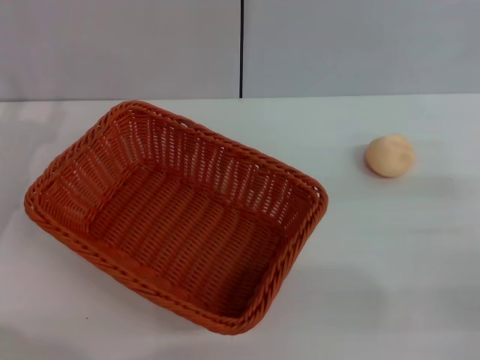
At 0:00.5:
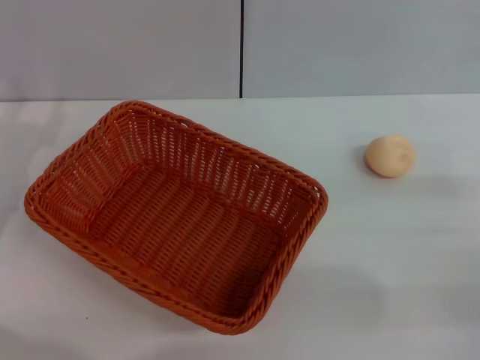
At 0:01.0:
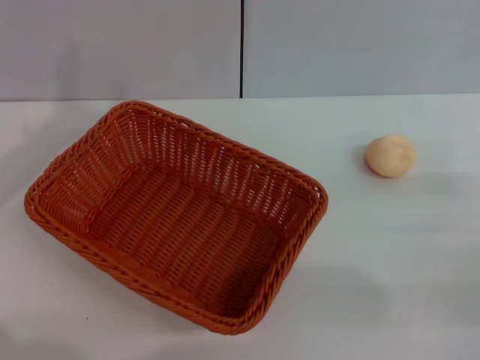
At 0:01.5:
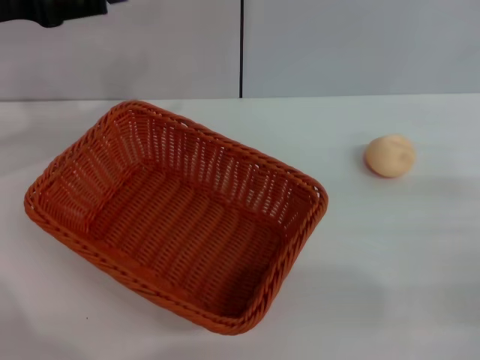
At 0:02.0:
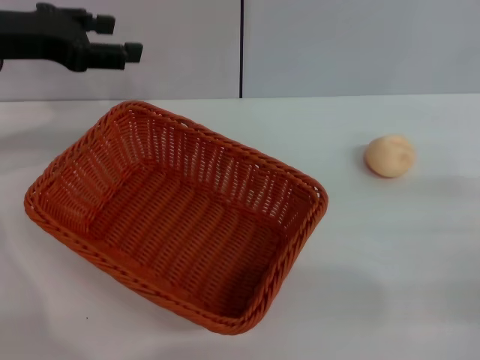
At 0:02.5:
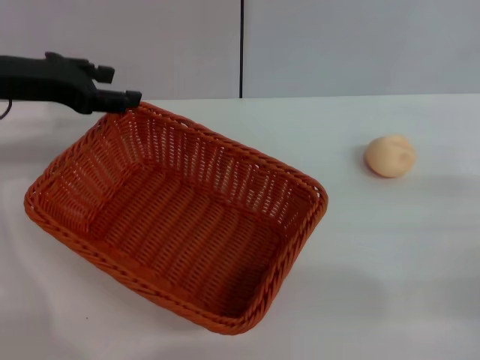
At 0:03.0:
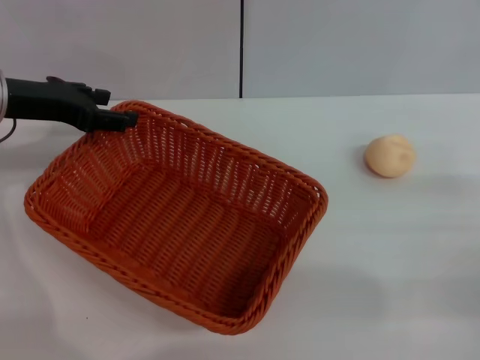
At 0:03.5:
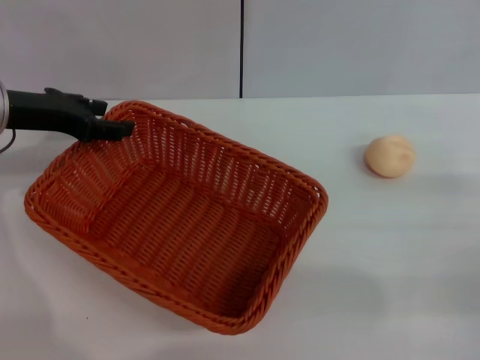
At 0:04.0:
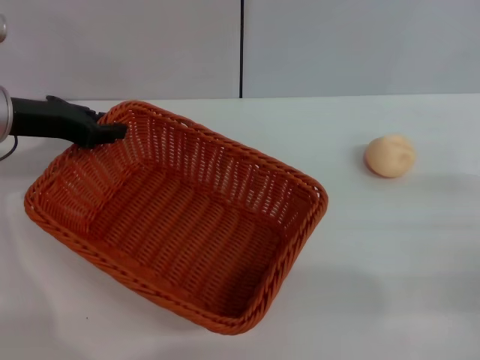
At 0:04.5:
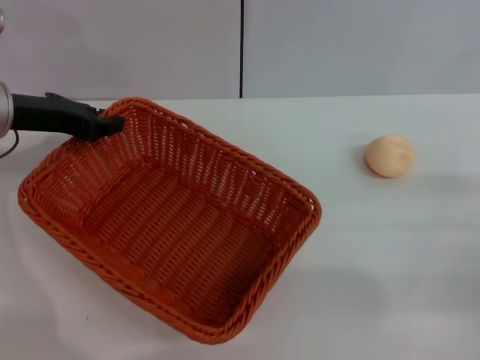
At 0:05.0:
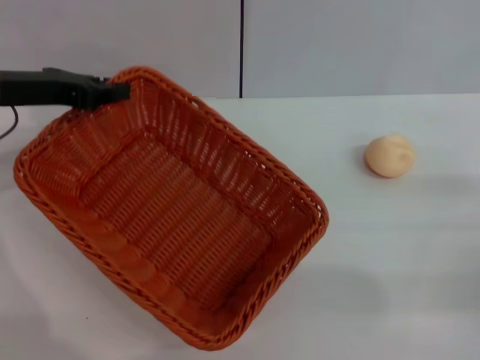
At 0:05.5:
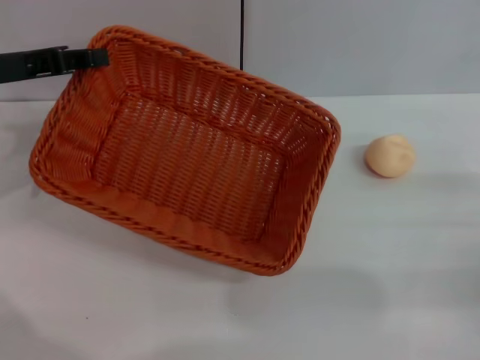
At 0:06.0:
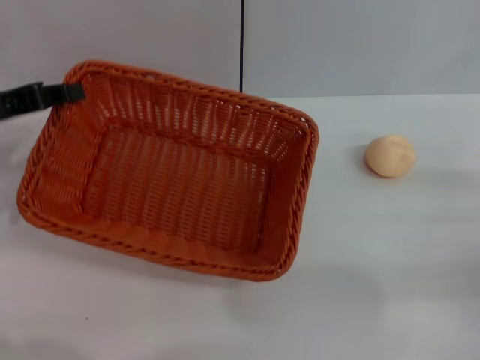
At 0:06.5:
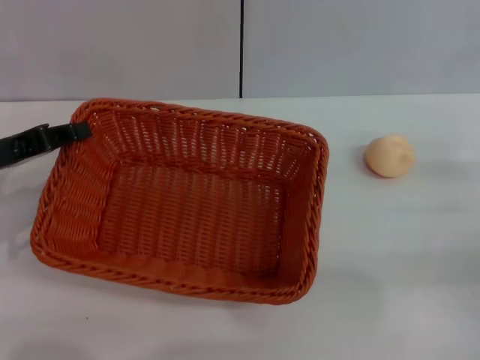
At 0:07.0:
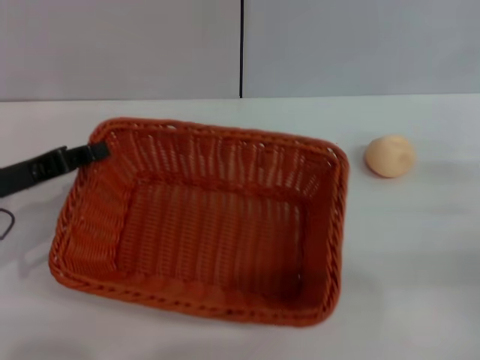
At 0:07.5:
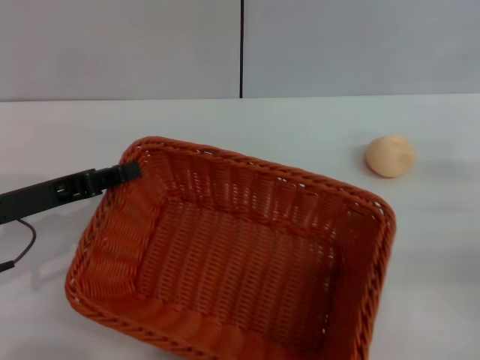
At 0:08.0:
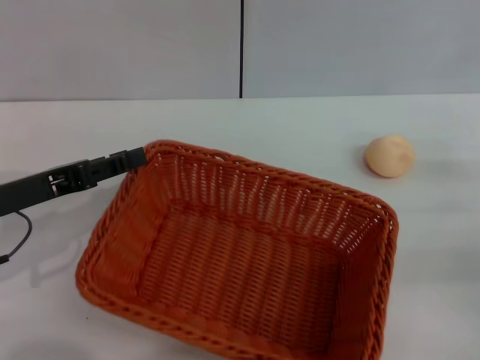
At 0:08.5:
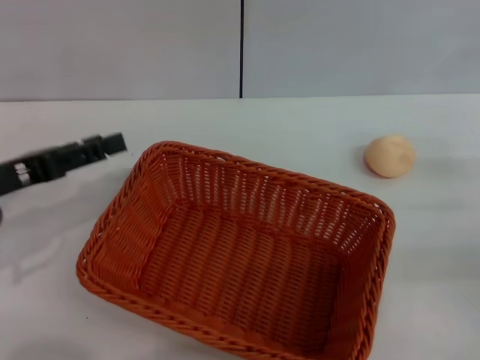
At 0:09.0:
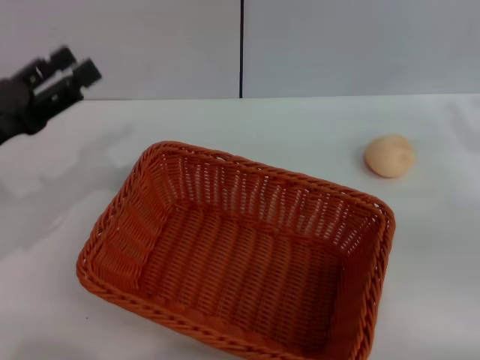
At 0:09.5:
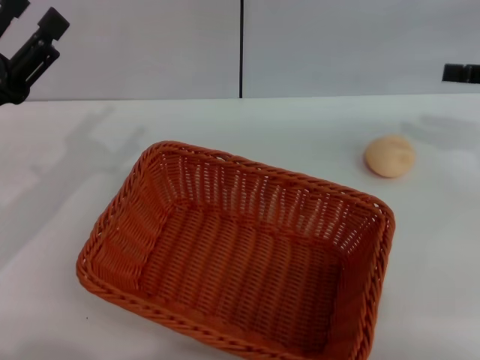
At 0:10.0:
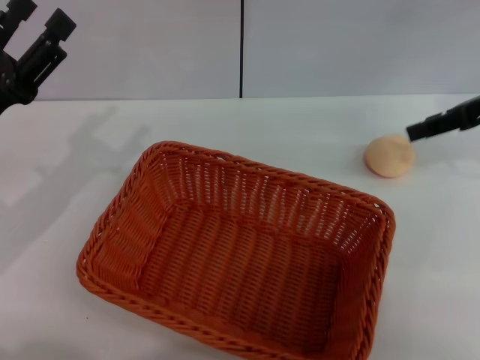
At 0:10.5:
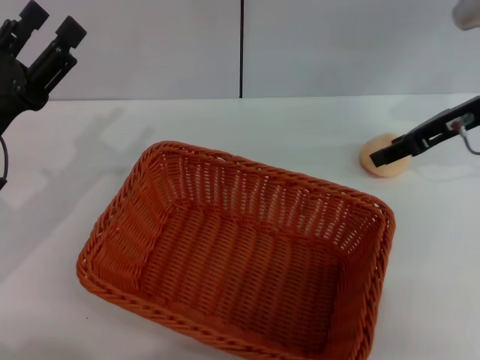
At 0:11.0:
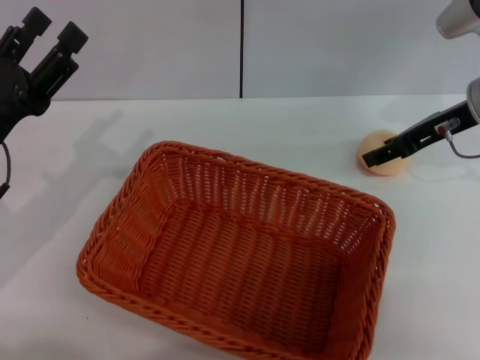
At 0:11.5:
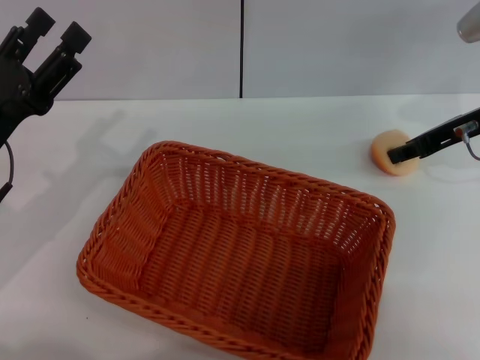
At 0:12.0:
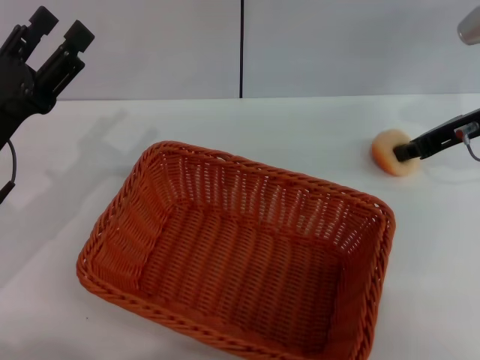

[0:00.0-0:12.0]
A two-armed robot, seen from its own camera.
Step, 0:00.0 to 0:08.5: Move the basket to the center of view with the left gripper.
0:00.0 to 0:02.0: The left gripper heads forward and upward, covering about 15 cm.
0:02.0 to 0:04.0: The left gripper goes some 5 cm downward, and closes up.
0:04.0 to 0:06.0: The left gripper changes place by about 5 cm, and closes up.
0:06.0 to 0:08.0: The left gripper travels backward by some 5 cm.
0:08.0 to 0:10.0: The right gripper shifts roughly 20 cm forward and upward. The left gripper opens.
0:10.0 to 0:12.0: The right gripper ends up approximately 5 cm from where it was, and closes its fingers.

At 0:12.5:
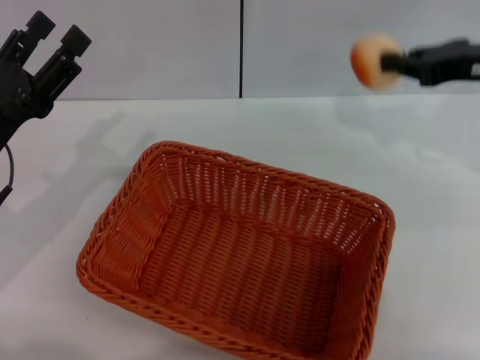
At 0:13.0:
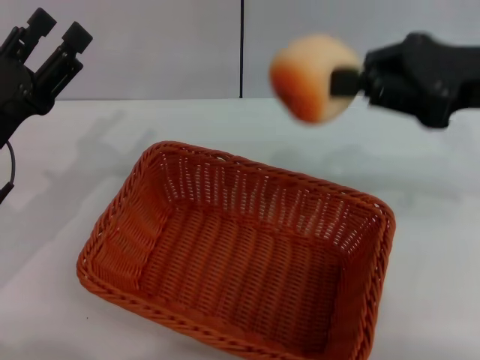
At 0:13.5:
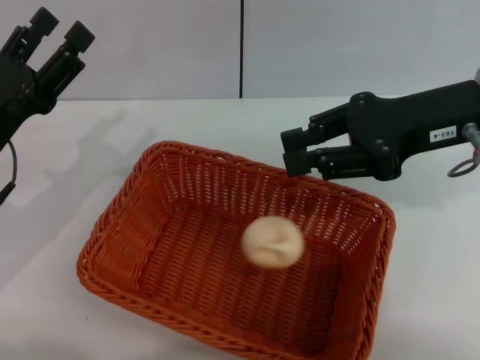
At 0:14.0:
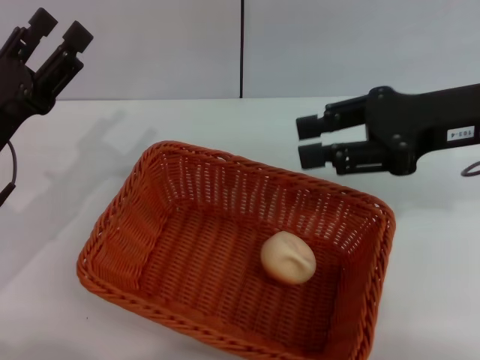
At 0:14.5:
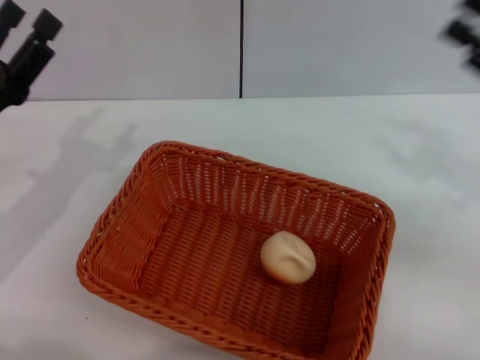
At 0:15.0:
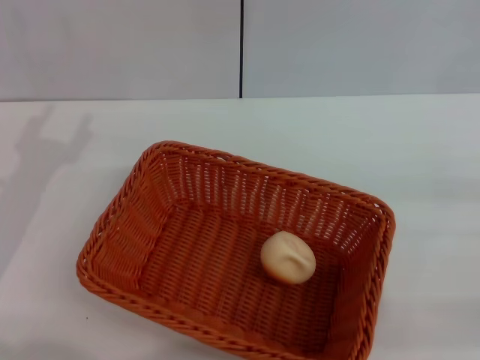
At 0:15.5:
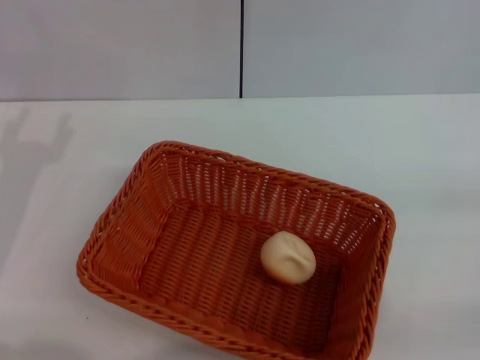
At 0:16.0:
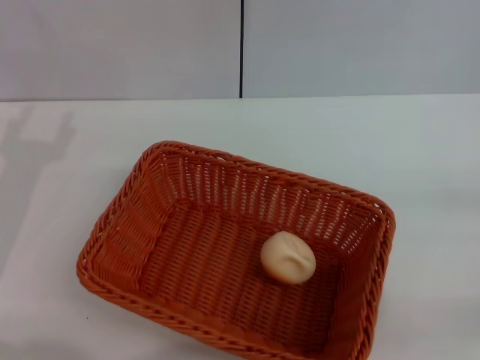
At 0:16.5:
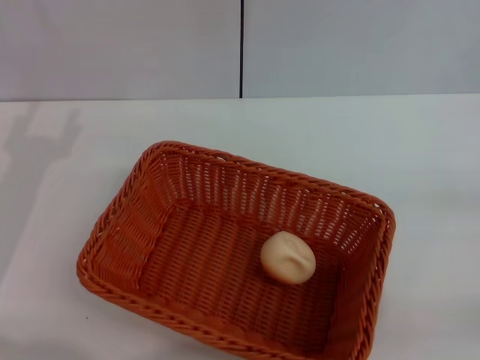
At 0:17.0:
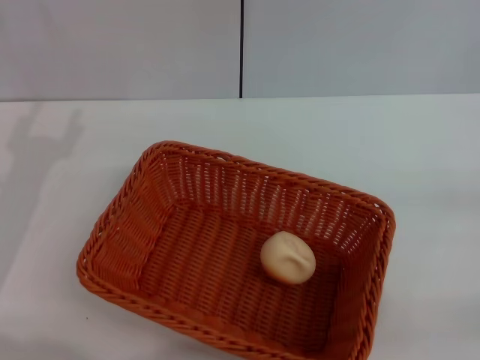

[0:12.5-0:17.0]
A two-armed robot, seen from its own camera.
Step, 0:12.5 to 0:13.5: Place the egg yolk pastry into the basket with the right gripper.
0:12.5 to 0:14.5: The right gripper is displaced backward by about 10 cm, and opens.
0:14.5 to 0:17.0: The right gripper travels downward, backward and to the right by some 15 cm.
